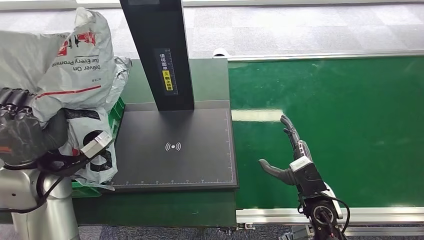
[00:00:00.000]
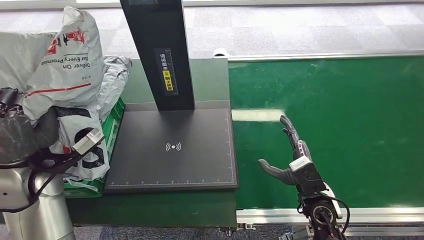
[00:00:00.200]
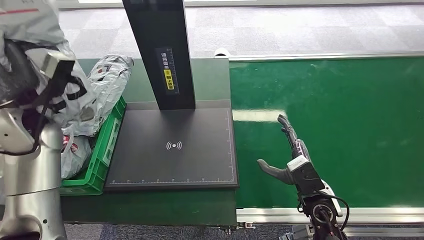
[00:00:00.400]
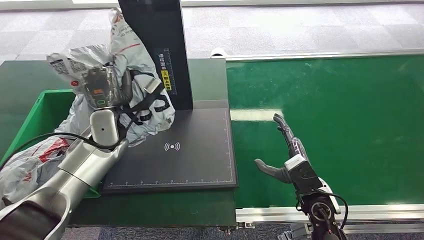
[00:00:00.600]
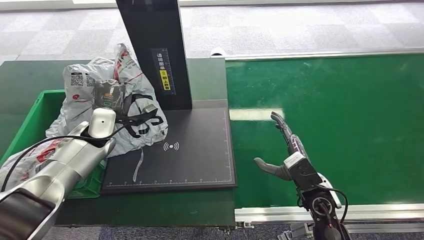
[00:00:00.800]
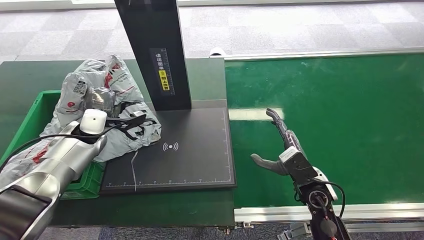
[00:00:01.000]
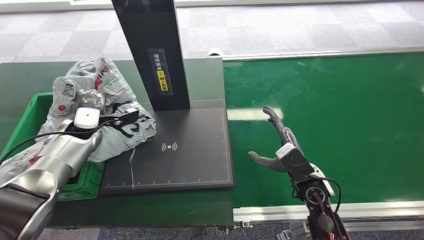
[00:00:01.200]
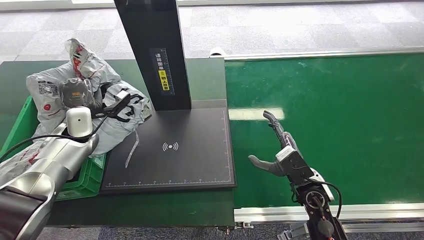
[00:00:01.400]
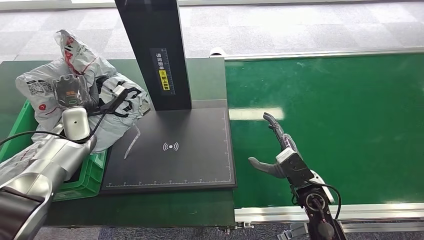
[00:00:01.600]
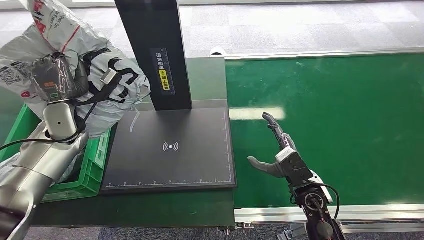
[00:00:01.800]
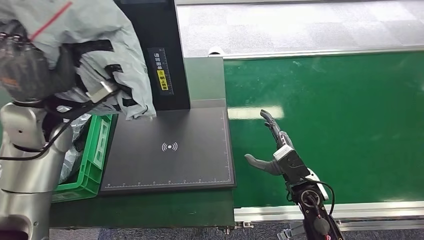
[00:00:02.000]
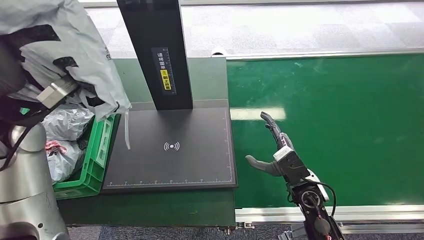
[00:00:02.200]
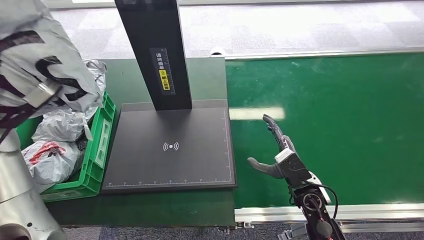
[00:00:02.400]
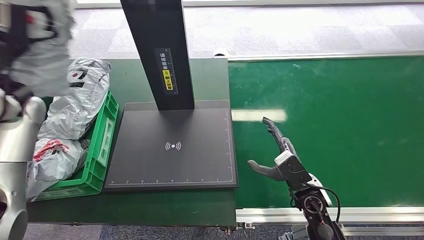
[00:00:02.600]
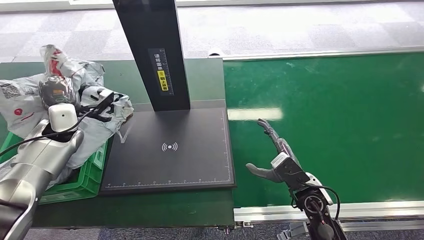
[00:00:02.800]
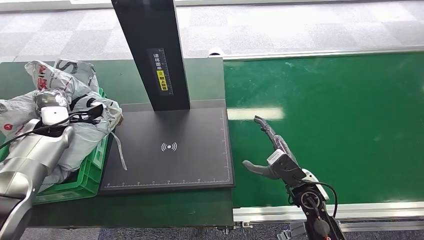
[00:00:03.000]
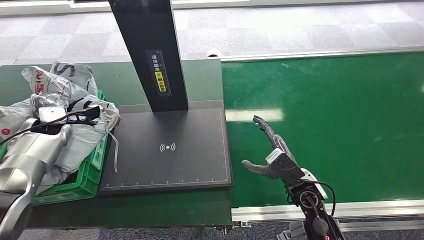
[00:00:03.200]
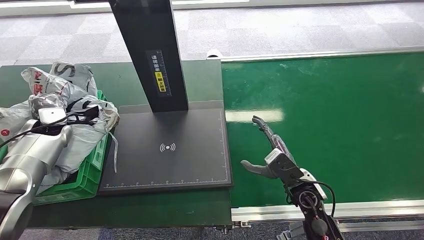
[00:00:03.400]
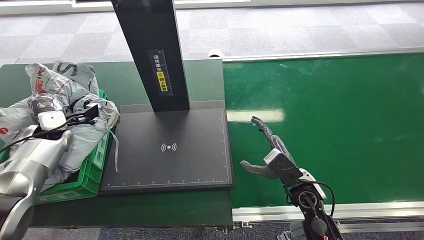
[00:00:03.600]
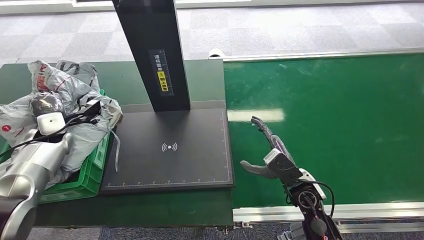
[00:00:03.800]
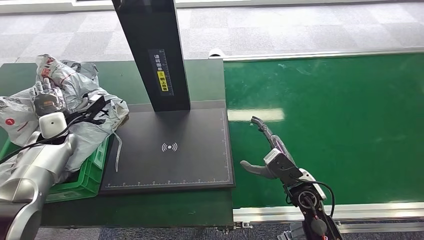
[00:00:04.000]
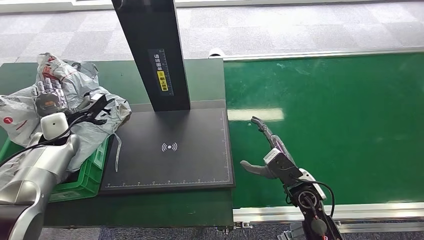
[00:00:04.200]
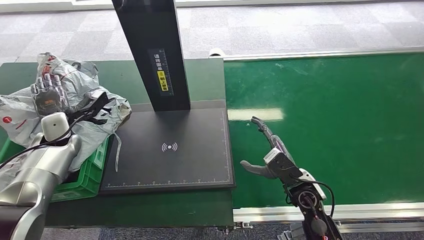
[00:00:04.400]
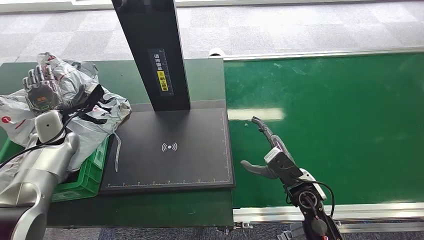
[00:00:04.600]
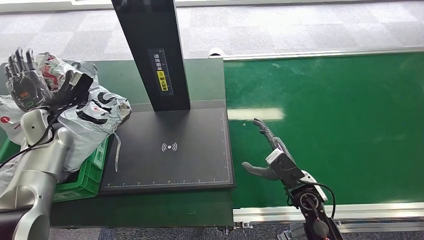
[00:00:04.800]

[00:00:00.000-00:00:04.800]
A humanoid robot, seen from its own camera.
Step, 00:00:00.000 to 00:00:04.800: Place the package into the parcel locker.
